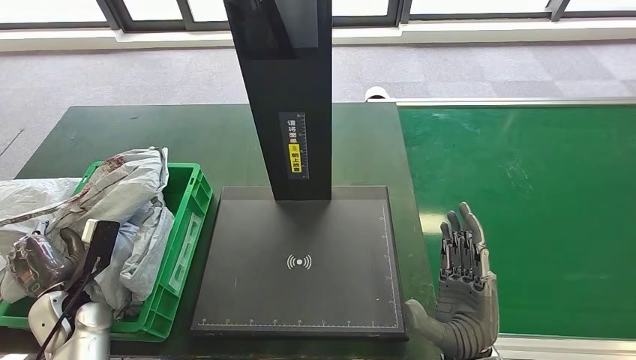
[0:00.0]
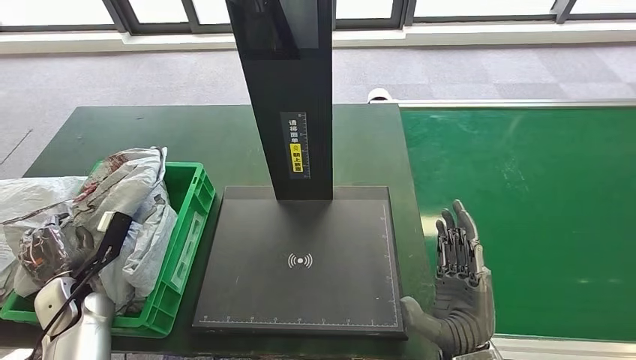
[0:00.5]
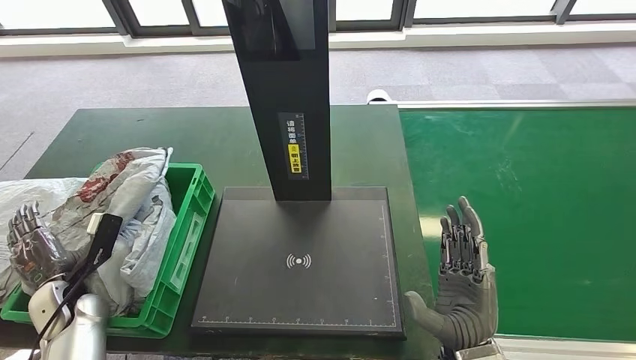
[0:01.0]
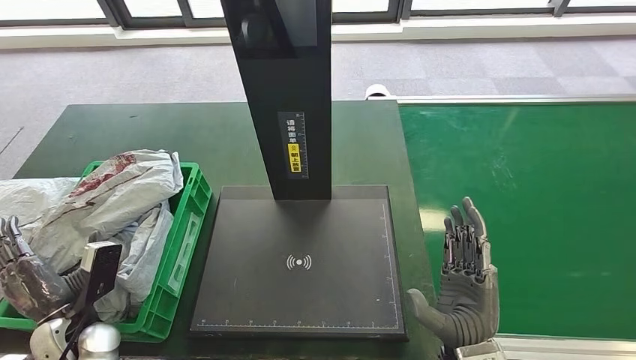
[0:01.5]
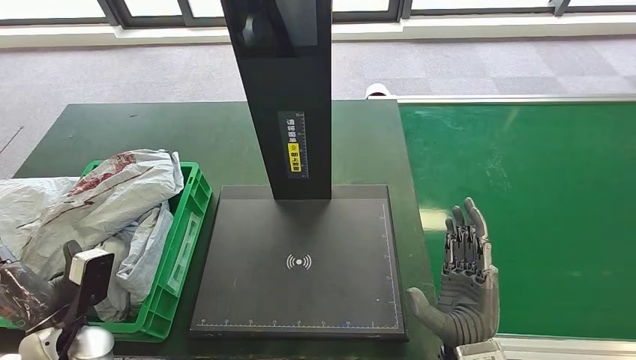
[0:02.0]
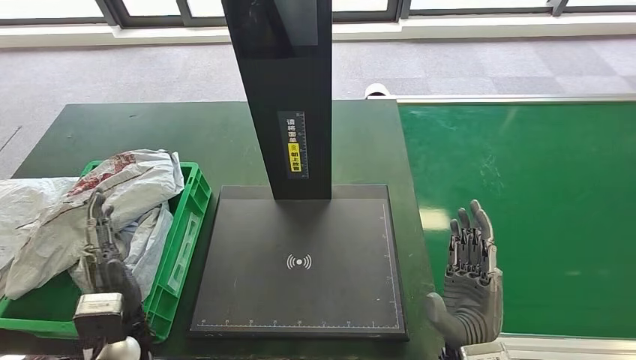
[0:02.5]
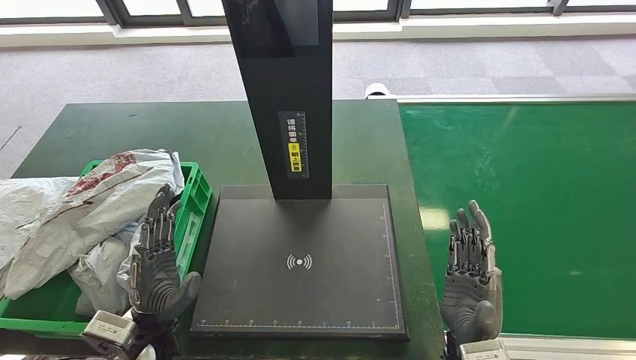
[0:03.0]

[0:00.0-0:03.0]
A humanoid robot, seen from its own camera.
Step, 0:00.0 to 0:03.0: Place the parcel into the delivery box.
0:00.0 to 0:01.5: There are only small adjustments of the hands.
0:01.5 to 0:03.0: The left hand heads to the right, covering about 15 cm.
